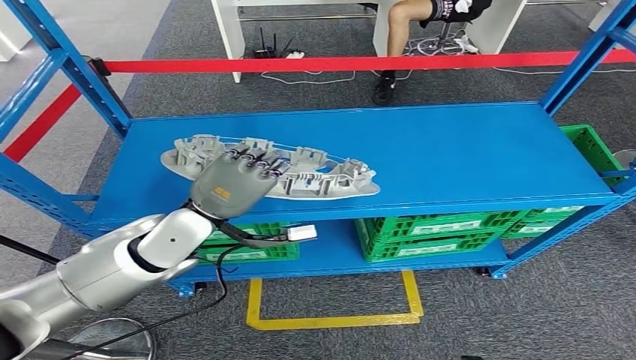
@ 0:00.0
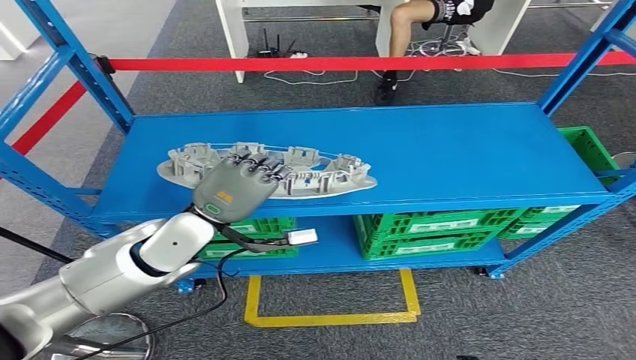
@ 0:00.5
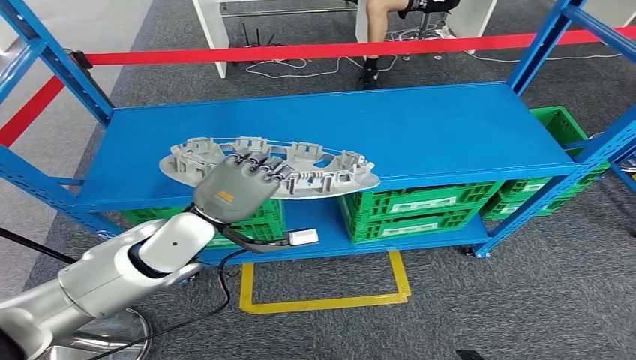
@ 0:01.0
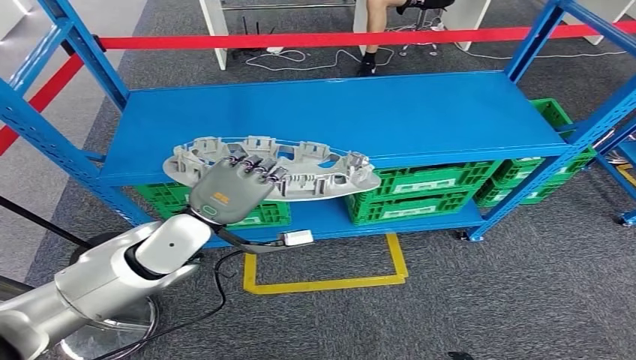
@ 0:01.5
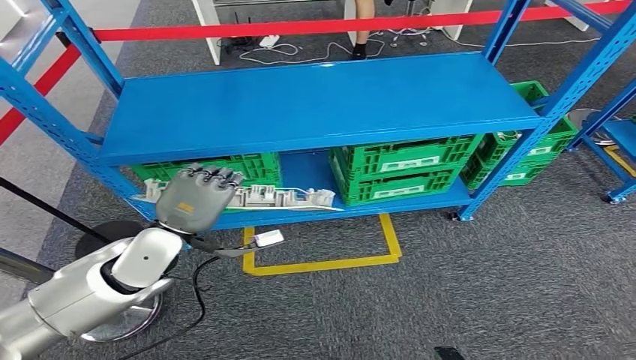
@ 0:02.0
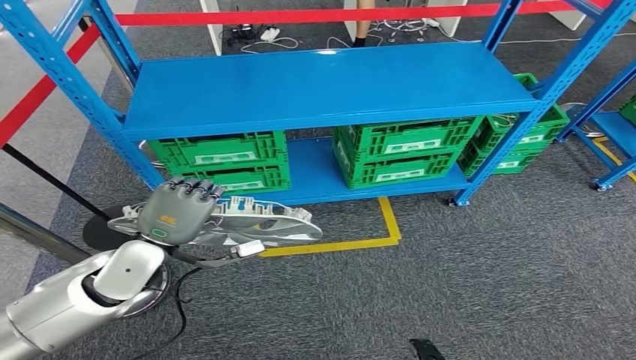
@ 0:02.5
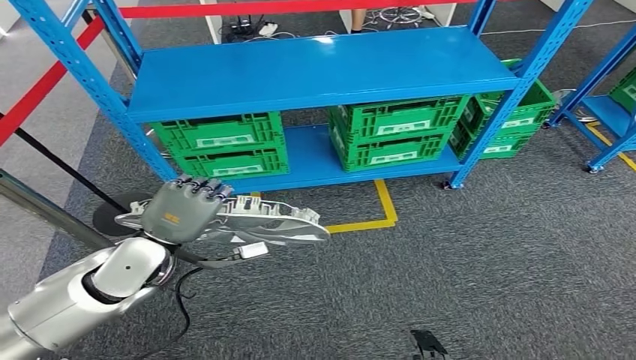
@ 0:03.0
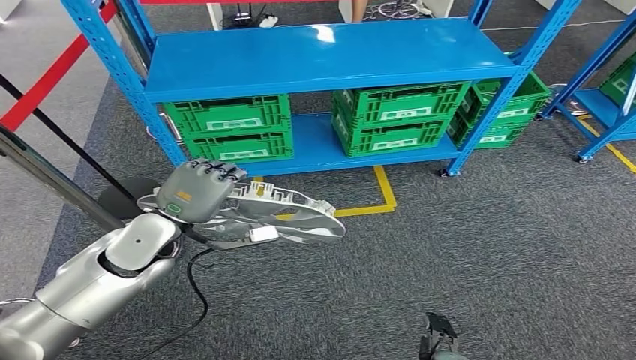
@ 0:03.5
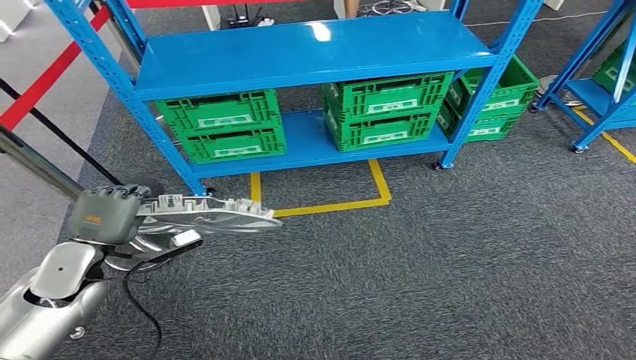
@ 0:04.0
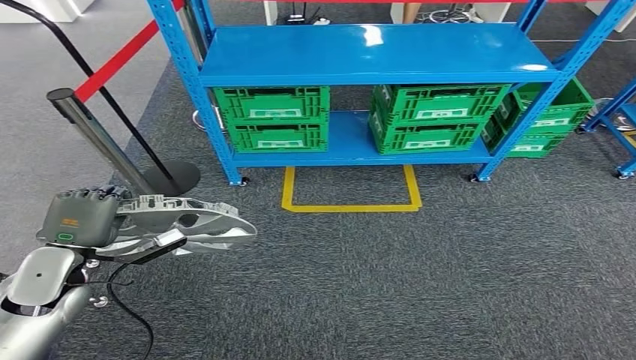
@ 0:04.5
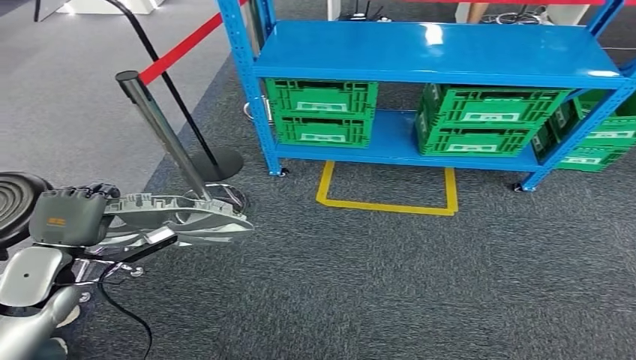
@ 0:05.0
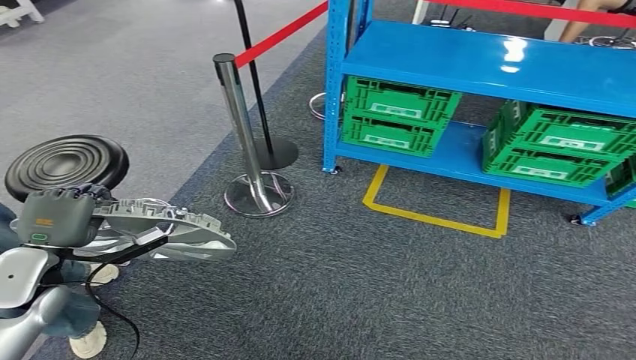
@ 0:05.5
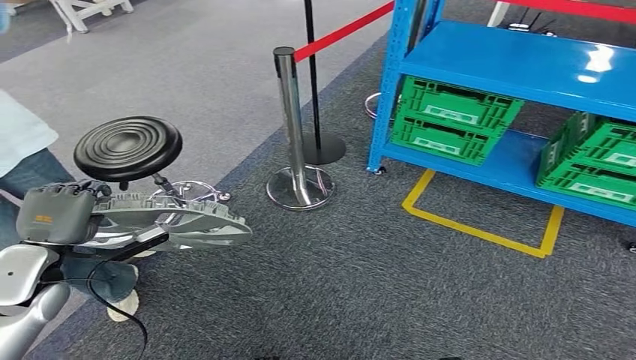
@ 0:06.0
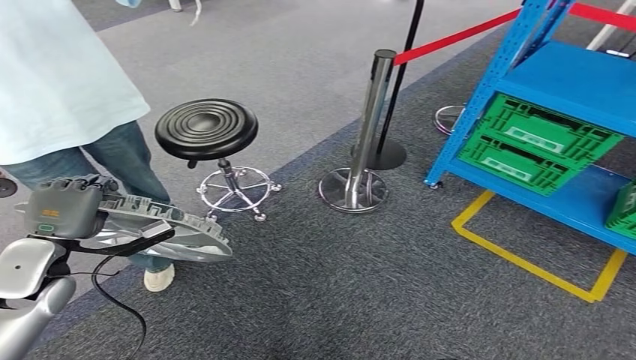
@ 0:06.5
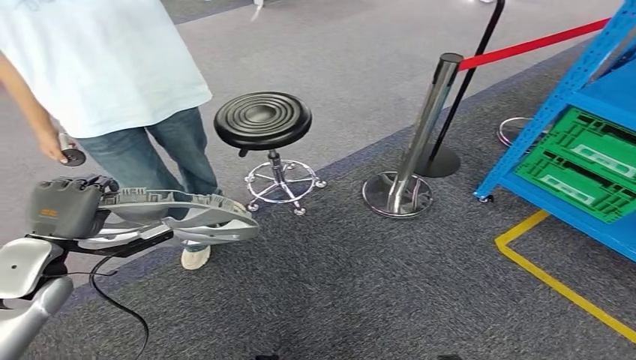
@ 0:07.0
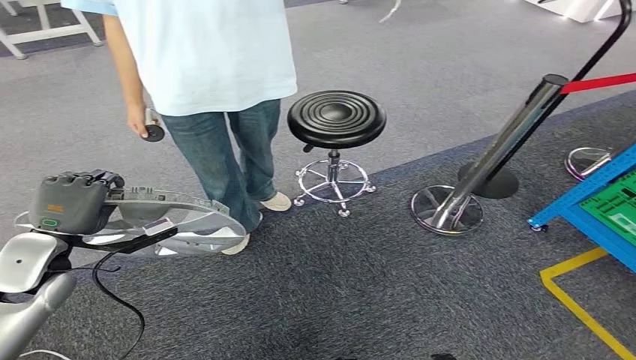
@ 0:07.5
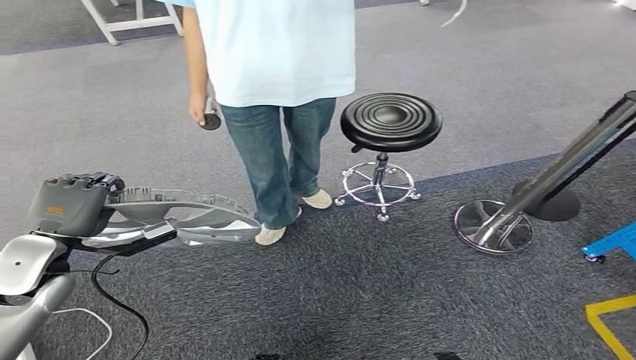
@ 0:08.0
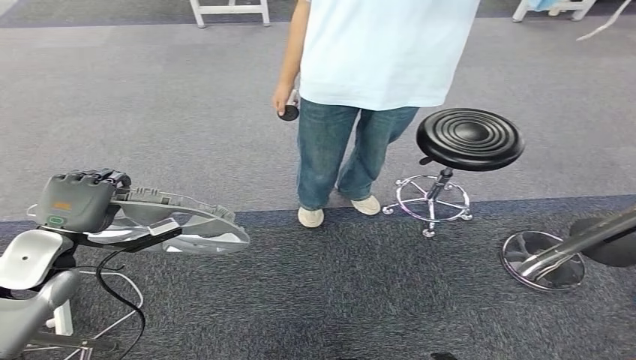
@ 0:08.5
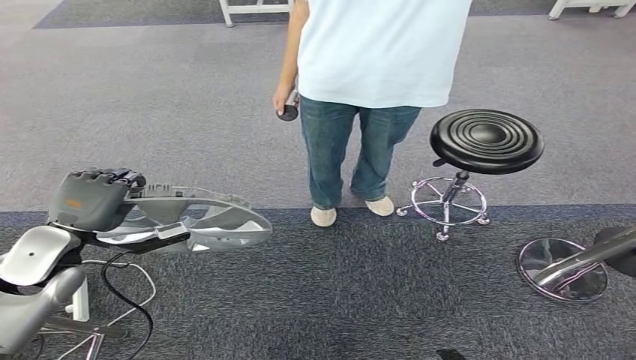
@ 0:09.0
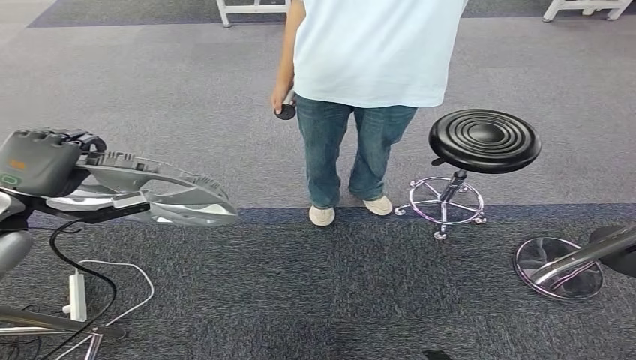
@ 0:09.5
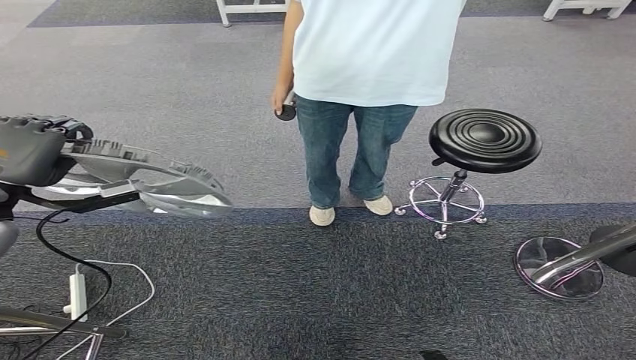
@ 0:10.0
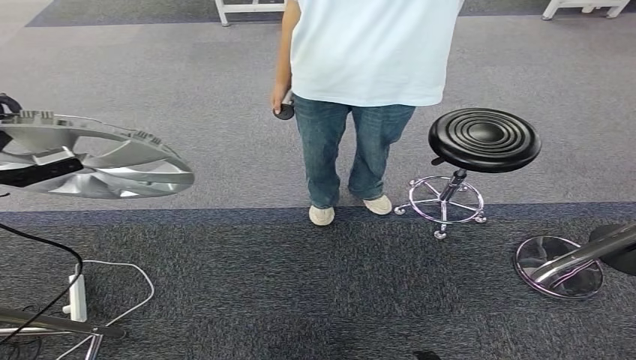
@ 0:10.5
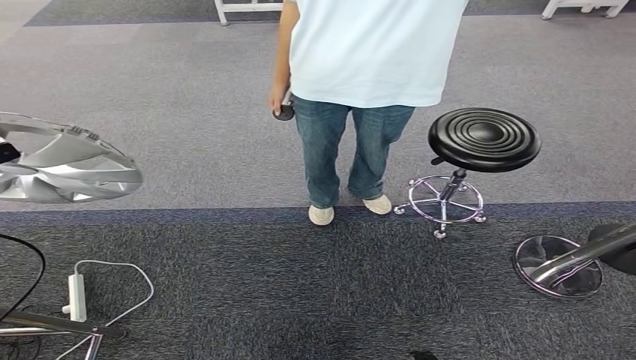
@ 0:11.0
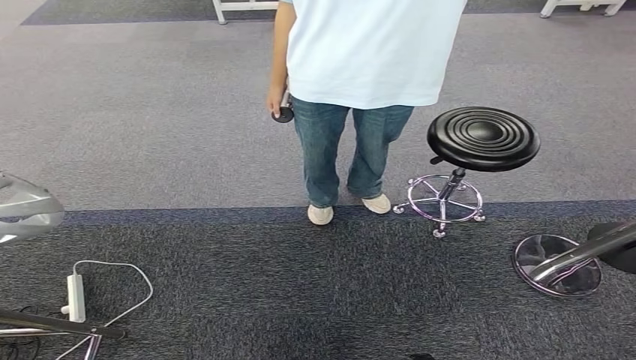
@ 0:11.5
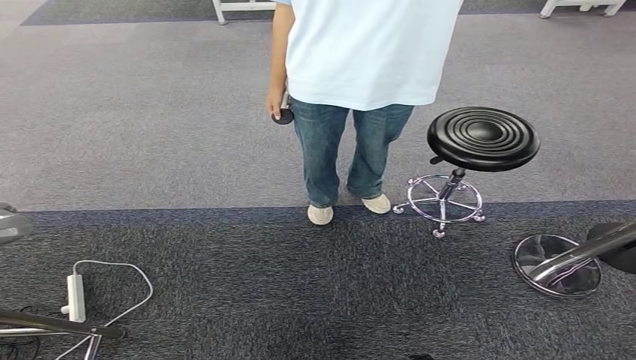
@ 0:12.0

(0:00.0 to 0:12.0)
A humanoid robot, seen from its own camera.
0:10.0 - 0:12.0: The left hand moves to the left and backward, about 30 cm.

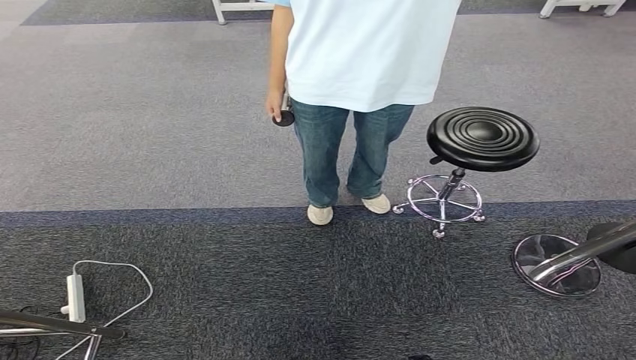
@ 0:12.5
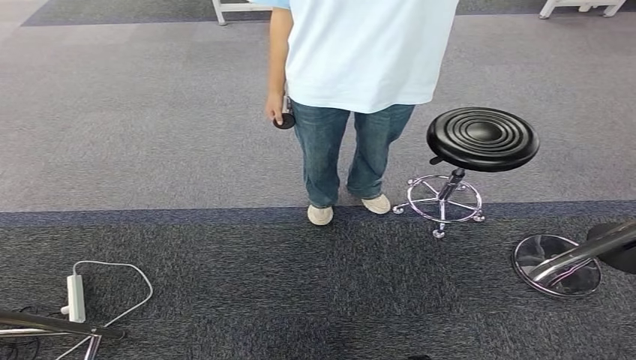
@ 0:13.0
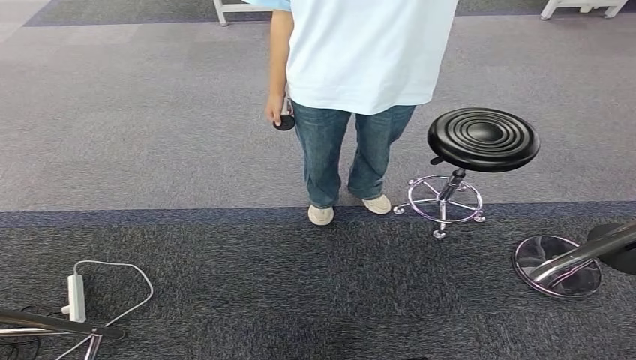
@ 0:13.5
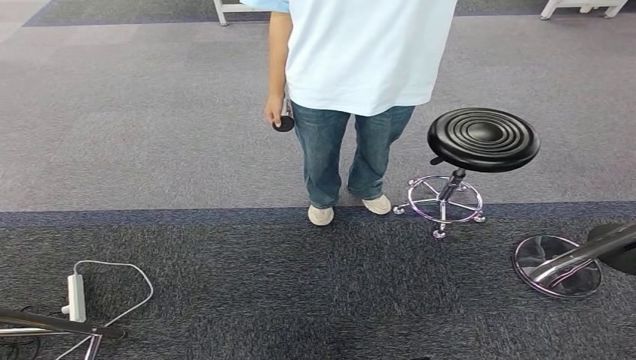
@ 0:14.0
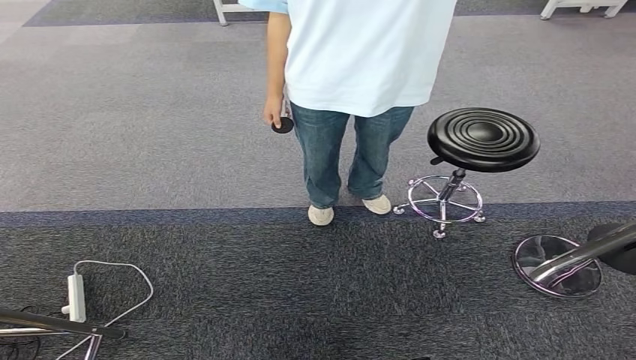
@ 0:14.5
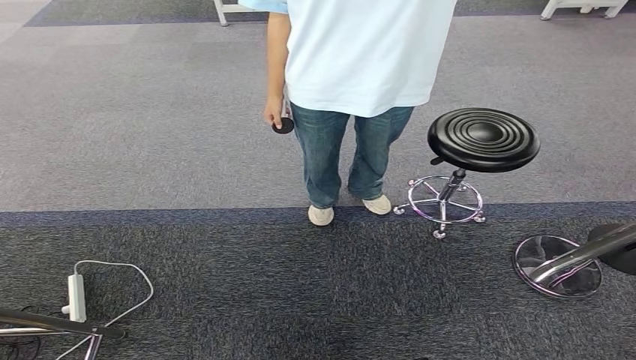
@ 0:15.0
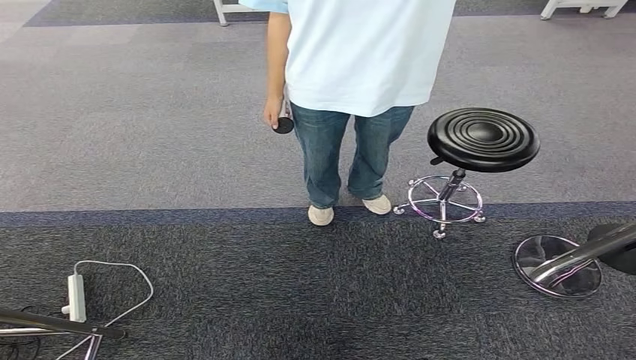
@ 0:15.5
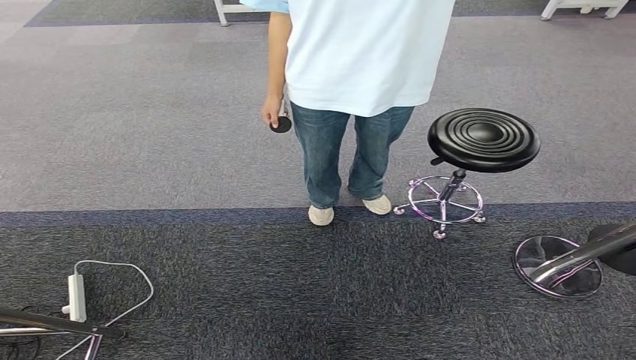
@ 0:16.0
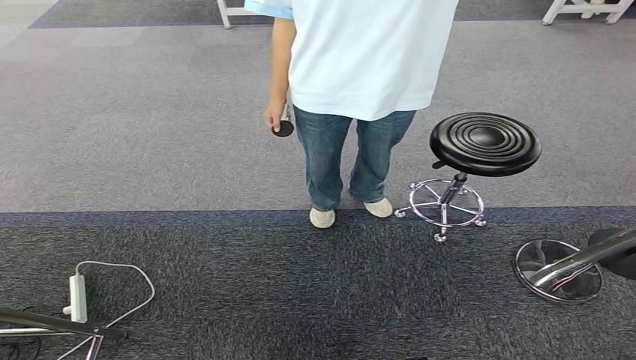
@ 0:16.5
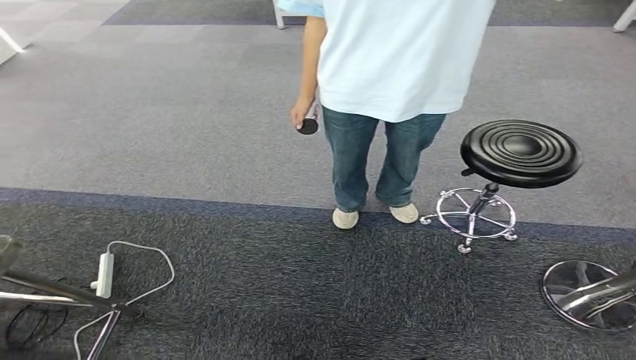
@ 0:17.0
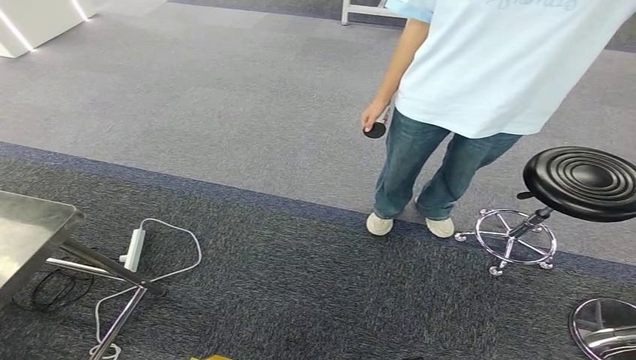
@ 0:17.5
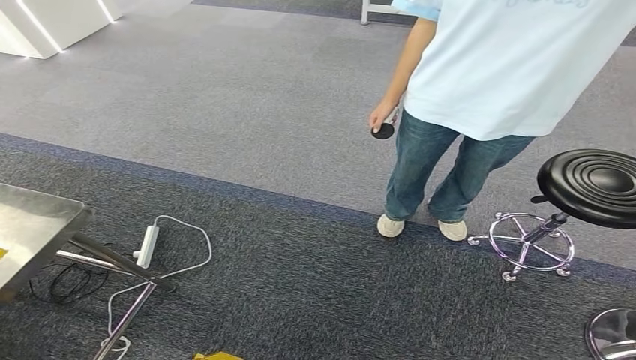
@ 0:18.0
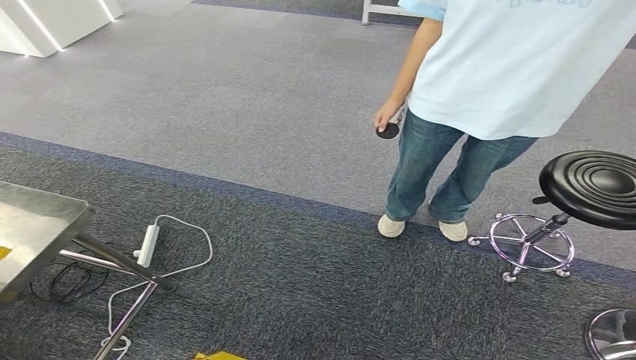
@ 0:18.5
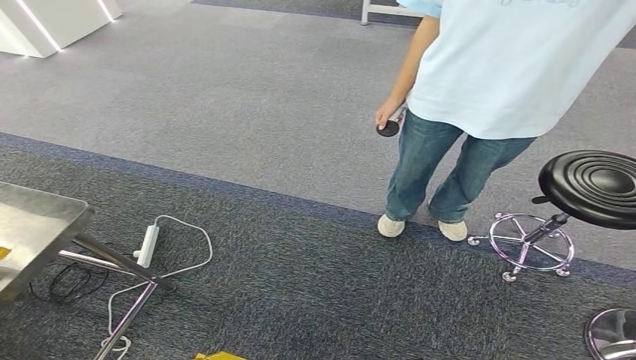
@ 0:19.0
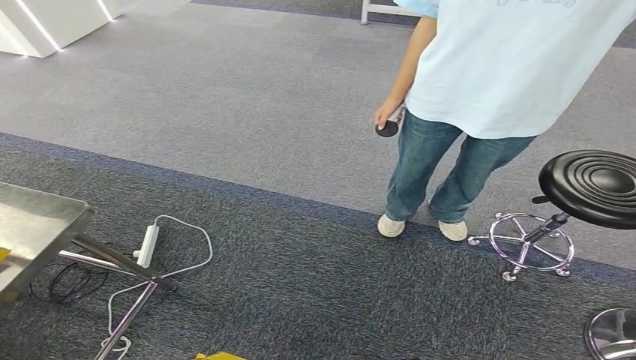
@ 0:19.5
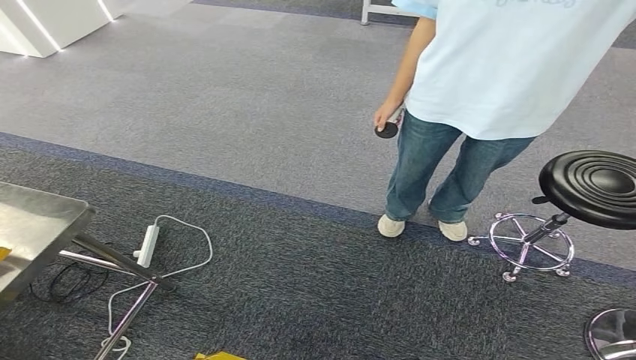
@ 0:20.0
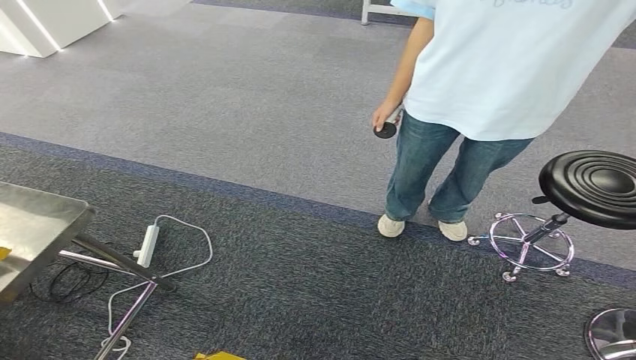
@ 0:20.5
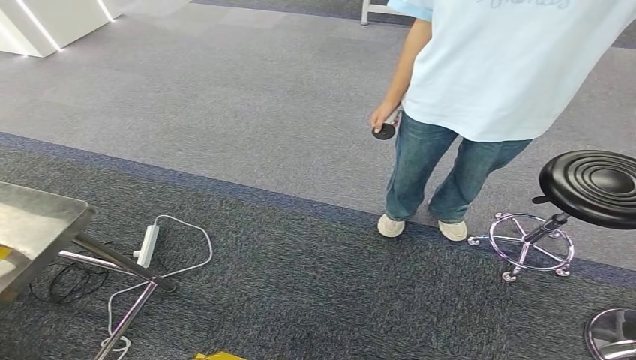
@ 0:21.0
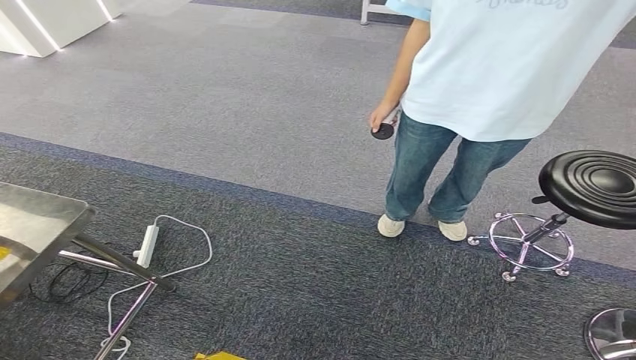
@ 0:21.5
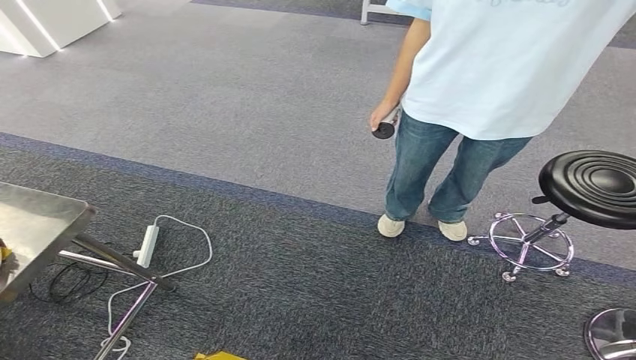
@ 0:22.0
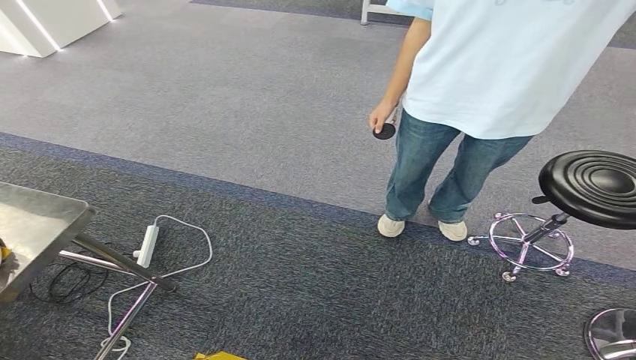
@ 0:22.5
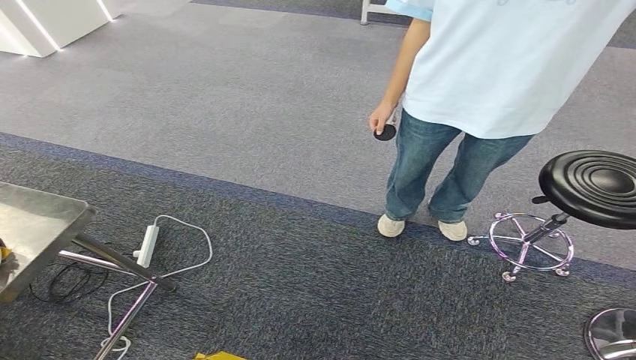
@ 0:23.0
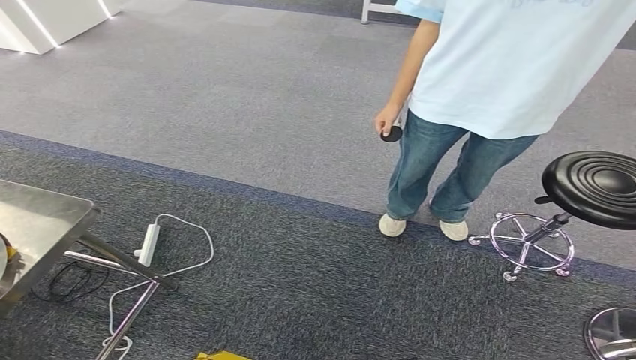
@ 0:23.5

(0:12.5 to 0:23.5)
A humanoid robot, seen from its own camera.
0:12.5 - 0:14.5: The left hand travels backward and to the right by some 15 cm.
0:18.0 - 0:20.0: The left hand is displaced forward and to the left by roughly 10 cm.
0:20.0 - 0:23.5: The hands make only small movements.
